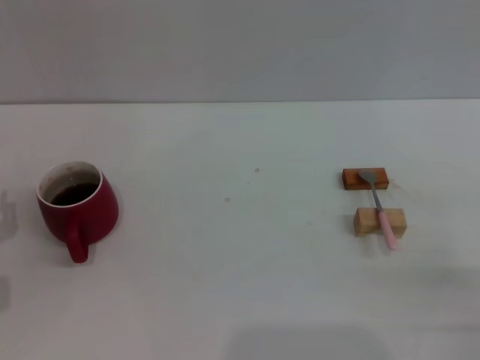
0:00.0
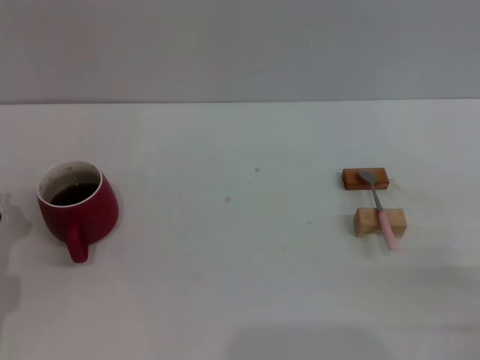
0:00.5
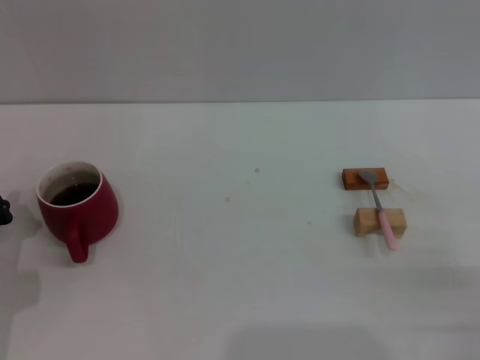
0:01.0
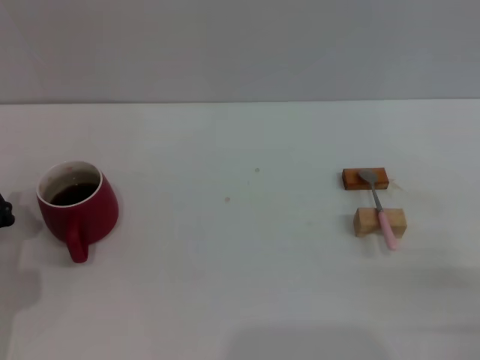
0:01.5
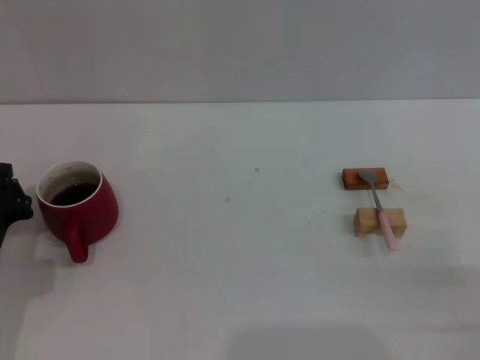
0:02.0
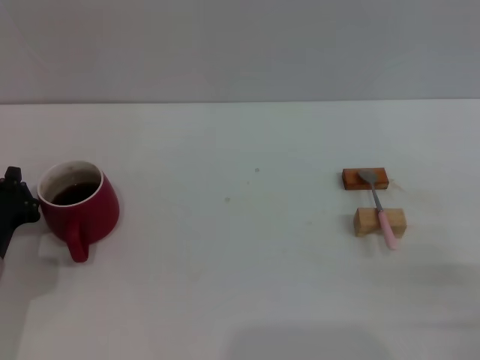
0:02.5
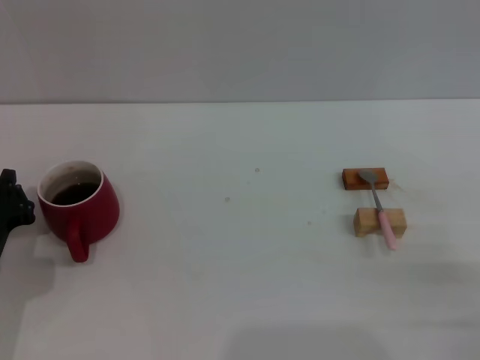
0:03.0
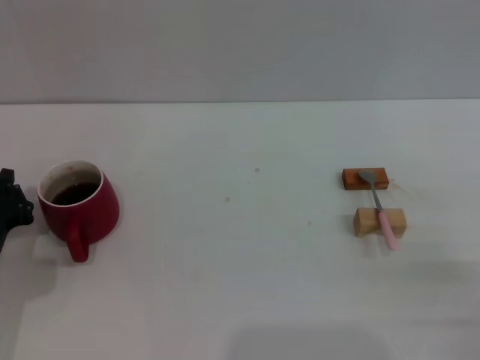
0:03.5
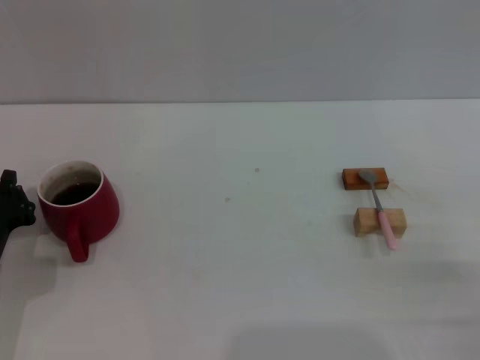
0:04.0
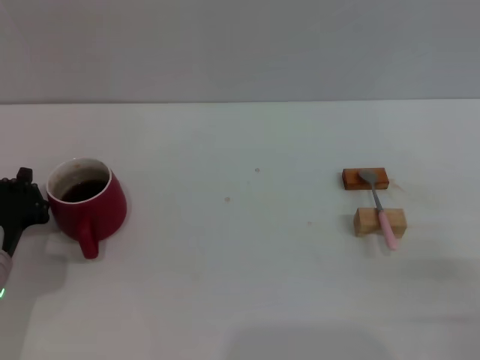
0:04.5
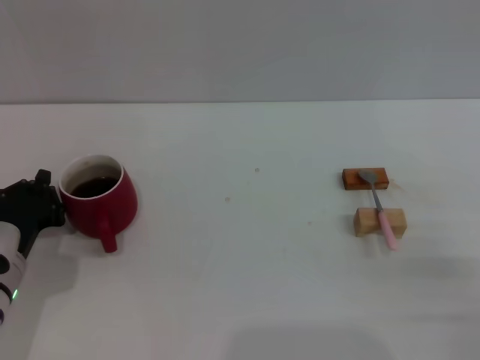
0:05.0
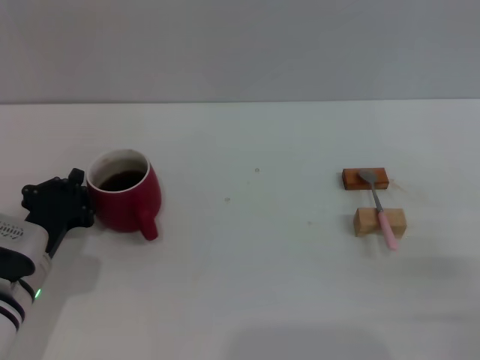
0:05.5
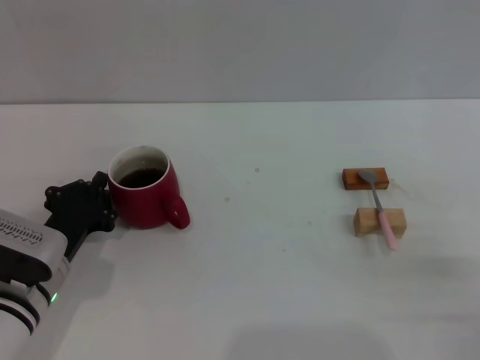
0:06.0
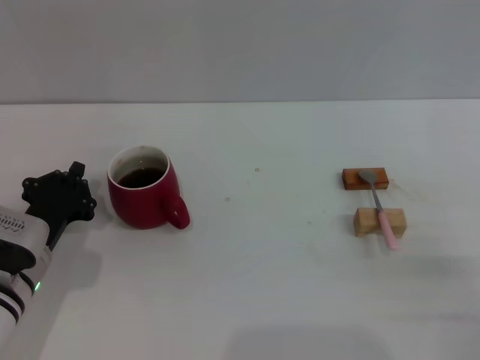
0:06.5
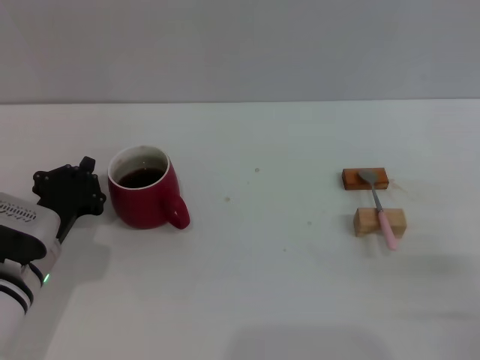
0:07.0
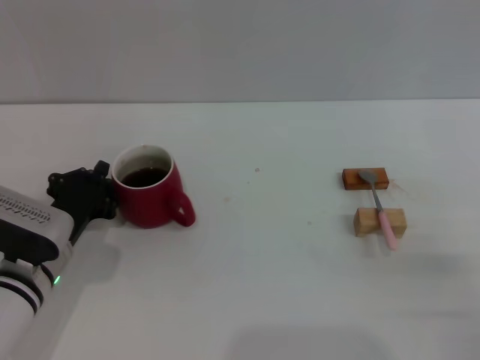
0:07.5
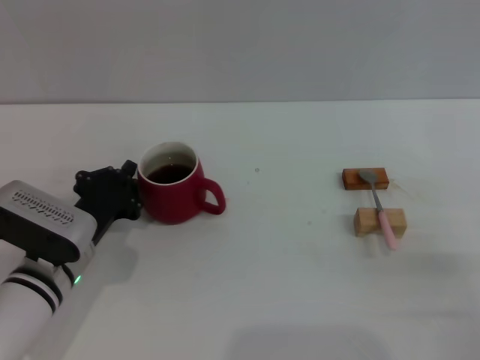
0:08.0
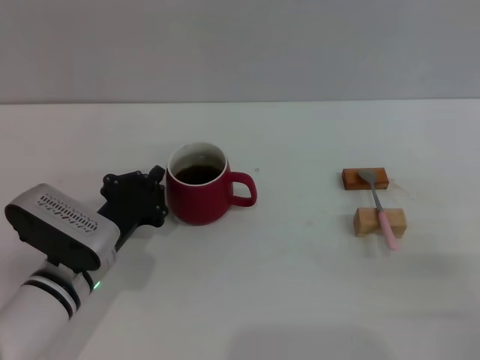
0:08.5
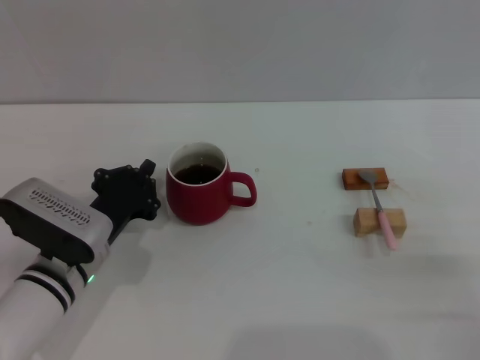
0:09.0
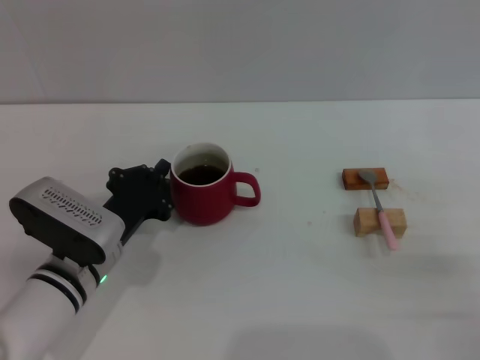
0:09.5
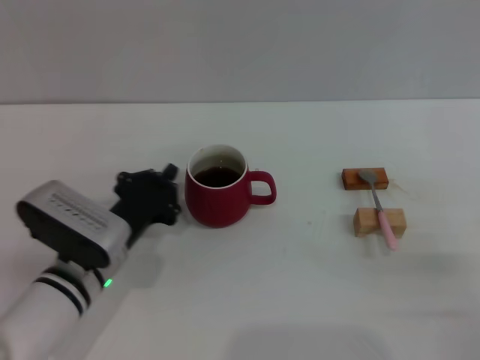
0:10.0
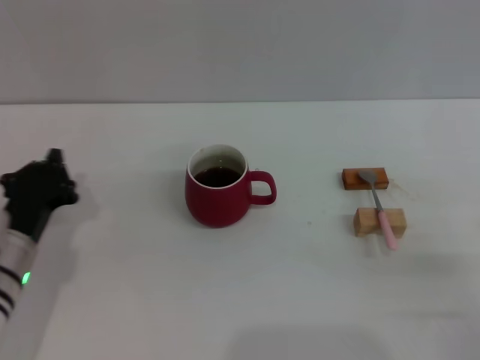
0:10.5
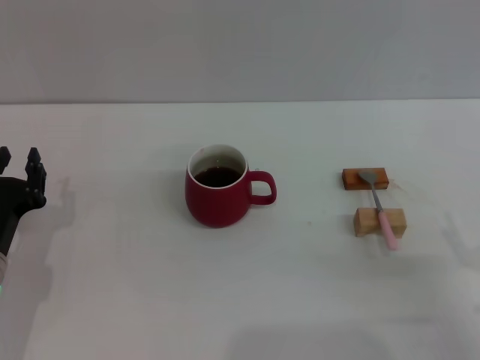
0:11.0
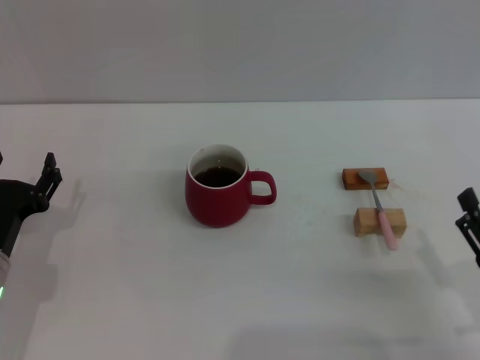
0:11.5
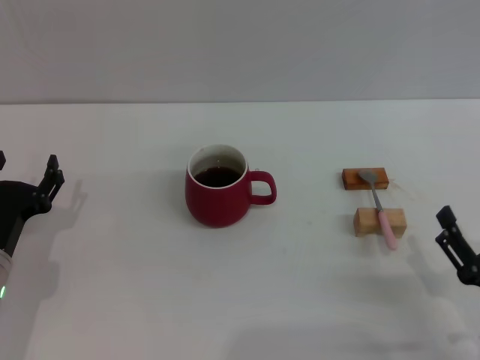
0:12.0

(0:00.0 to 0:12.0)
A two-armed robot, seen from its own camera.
Task of the whole recording: Move the red cup to the center, lift the pink spoon, stir it three times in the cup, and put the spoon into the cup.
Step, 0:00.0 - 0:10.5: Move the cup with coffee to the center of view with the left gripper.
0:00.0 - 0:02.0: The left gripper closes up.
0:04.0 - 0:06.0: The left gripper travels to the right by approximately 5 cm.
0:06.0 - 0:10.0: There are only small adjustments of the grippers.
0:10.0 - 0:12.0: The left gripper moves to the left, roughly 10 cm, and opens its fingers, while the right gripper is displaced to the left by approximately 5 cm.

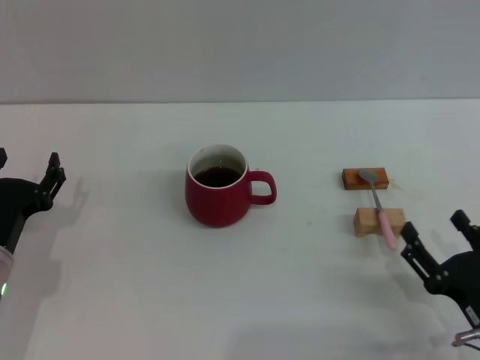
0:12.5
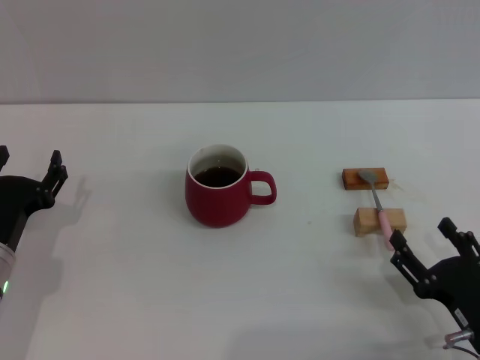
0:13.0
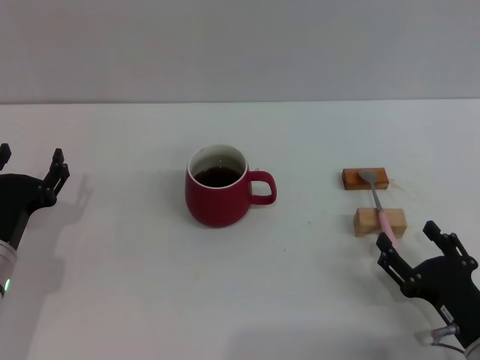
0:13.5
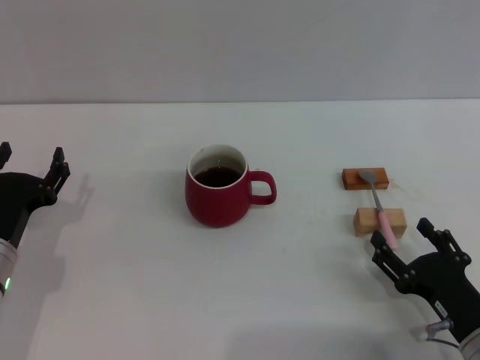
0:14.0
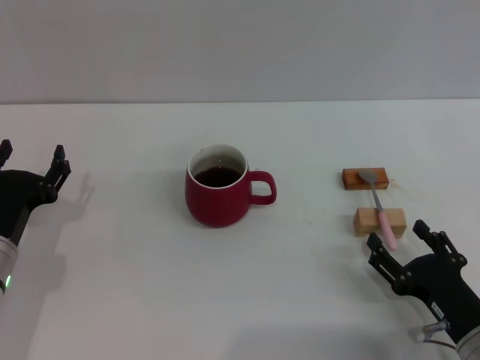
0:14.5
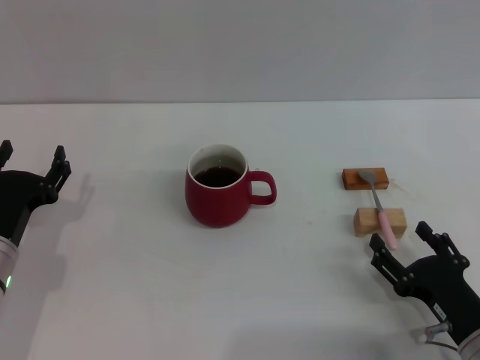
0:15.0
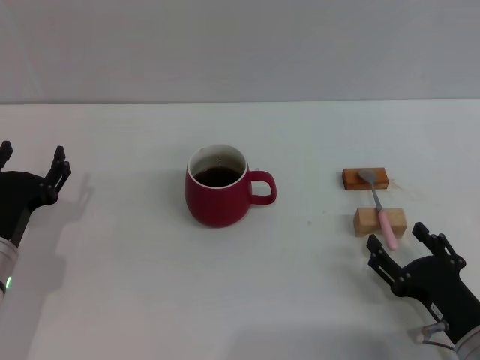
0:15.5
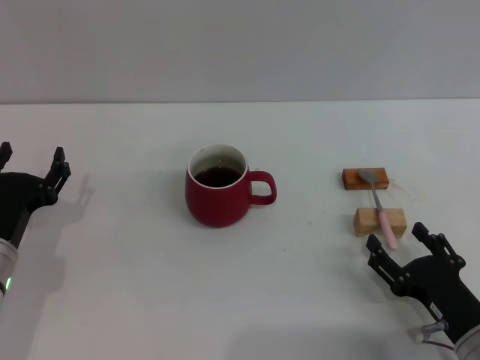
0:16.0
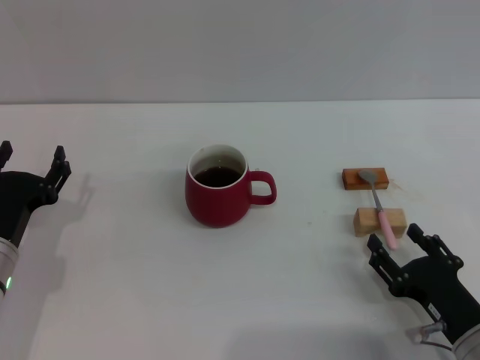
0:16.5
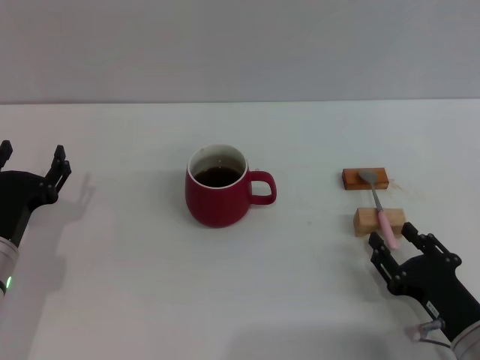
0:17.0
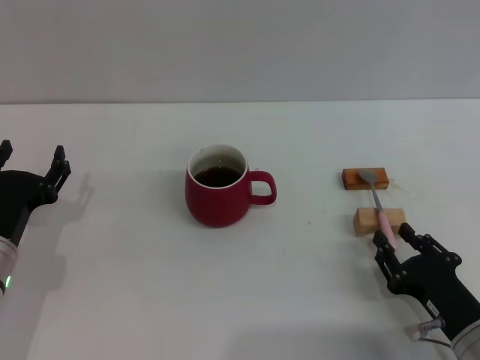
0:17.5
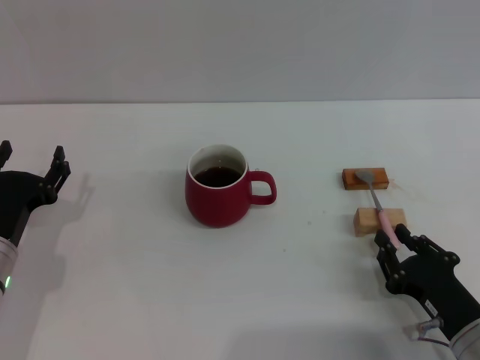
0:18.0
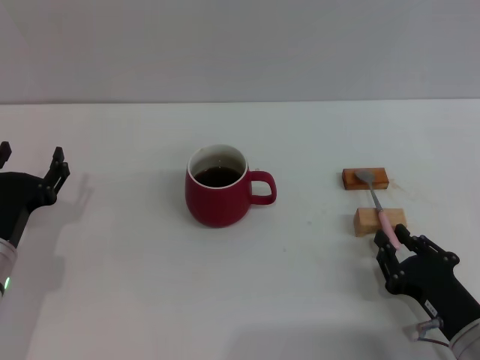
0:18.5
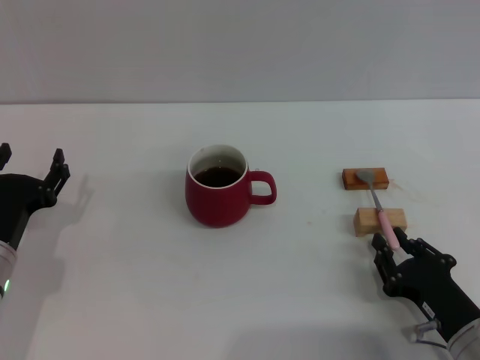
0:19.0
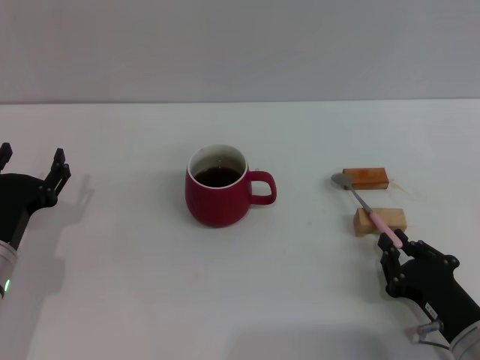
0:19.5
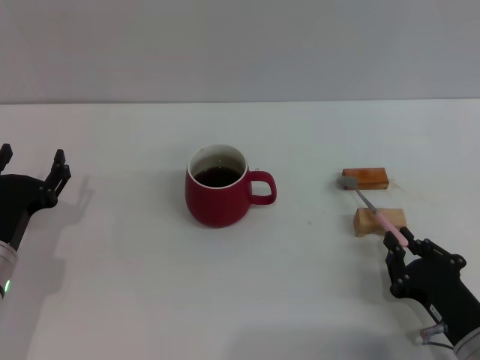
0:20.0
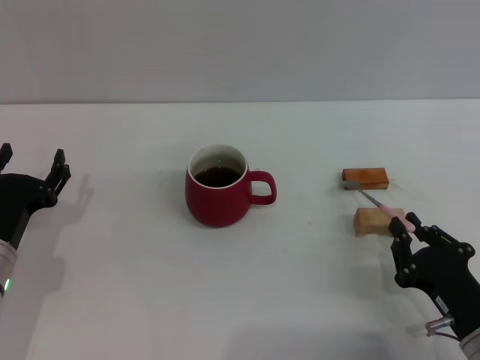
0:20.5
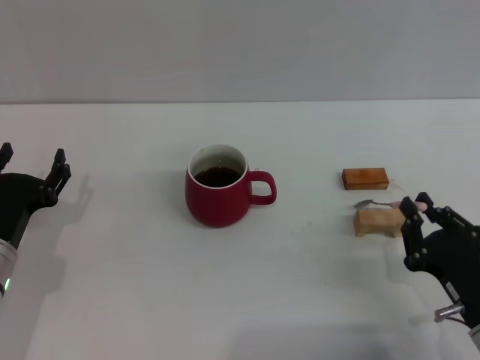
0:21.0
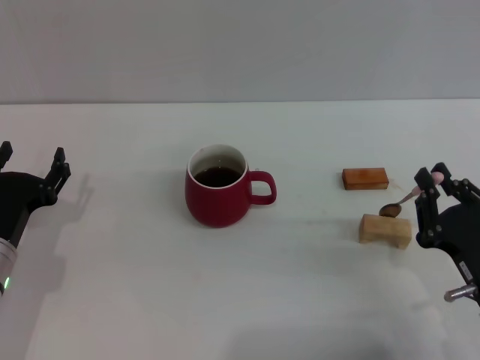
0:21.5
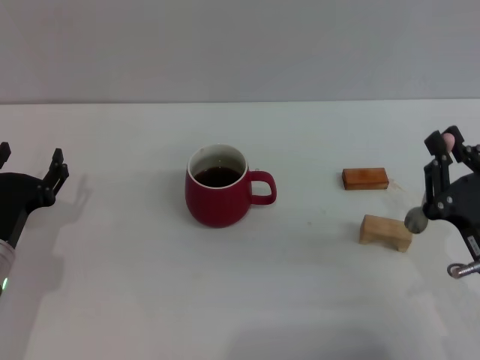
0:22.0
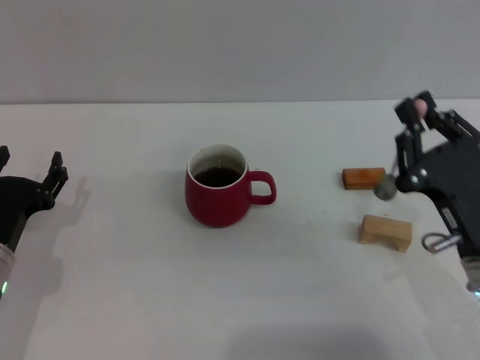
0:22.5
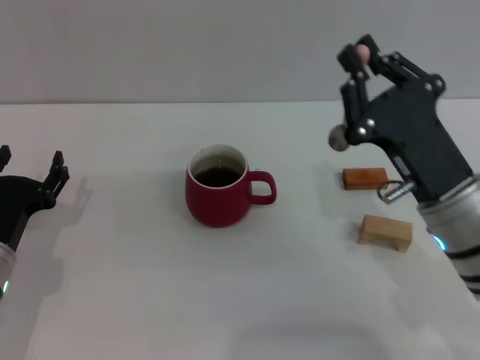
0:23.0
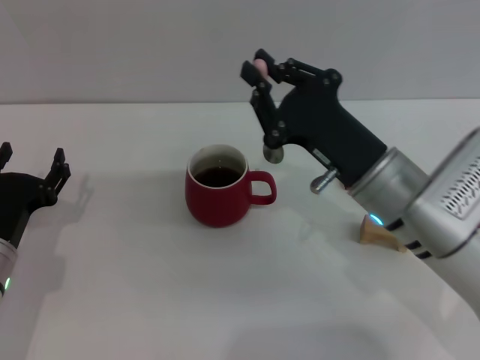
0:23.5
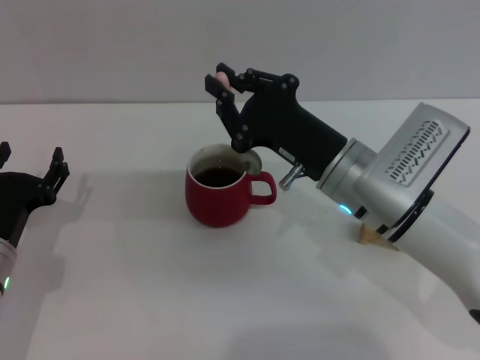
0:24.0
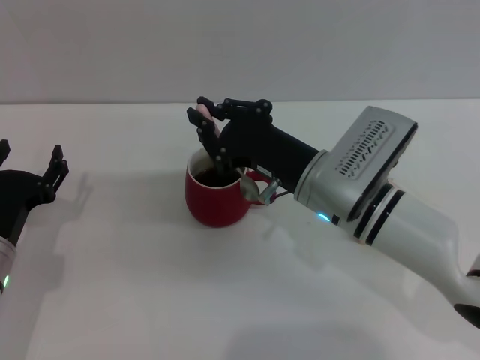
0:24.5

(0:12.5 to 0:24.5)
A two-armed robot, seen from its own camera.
Task of the whole recording: Move the red cup to the center, lift the pink spoon, stir it three times in the cup, and put the spoon into the cup.
Step, 0:12.5 - 0:22.0: Pick up the spoon with the right gripper.
0:12.5 - 0:14.5: There are only small adjustments of the grippers.
0:14.5 - 0:16.5: Both grippers stay put.
0:16.5 - 0:18.5: The right gripper closes its fingers.
0:18.5 - 0:20.5: There are only small adjustments of the grippers.
0:20.5 - 0:22.5: The right gripper heads upward, covering about 10 cm.
0:22.5 - 0:24.5: The right gripper goes some 15 cm to the left and forward.

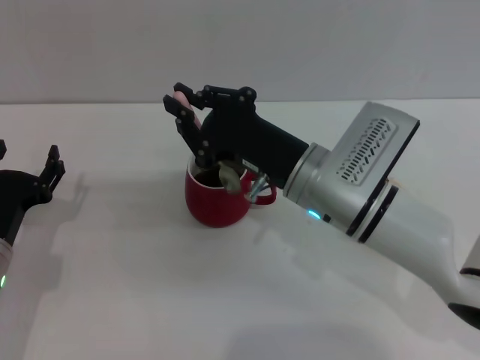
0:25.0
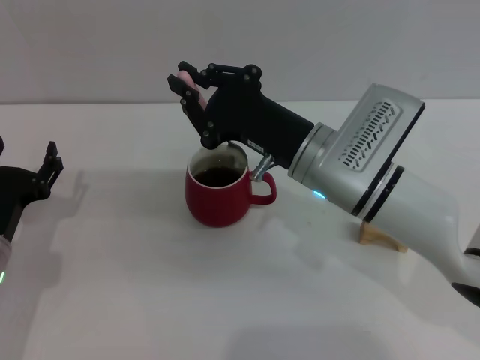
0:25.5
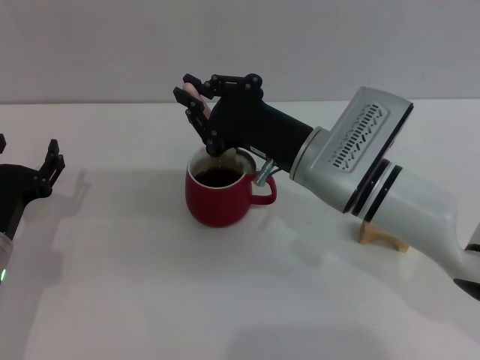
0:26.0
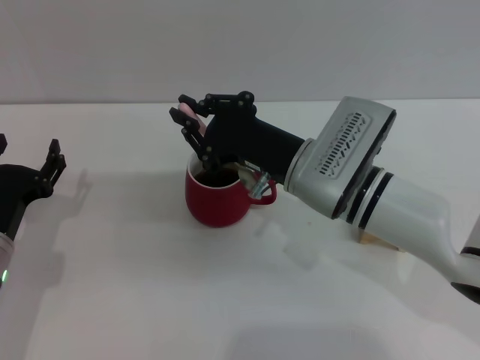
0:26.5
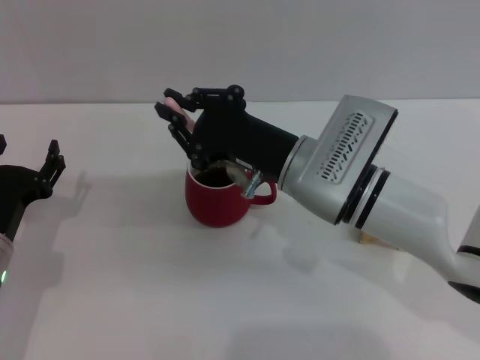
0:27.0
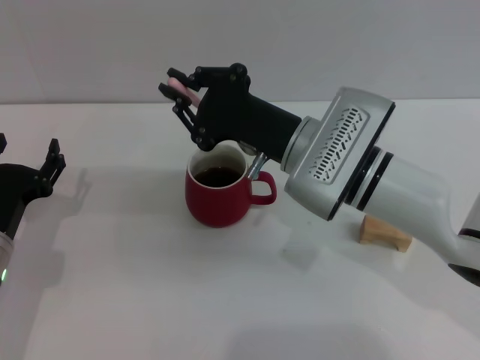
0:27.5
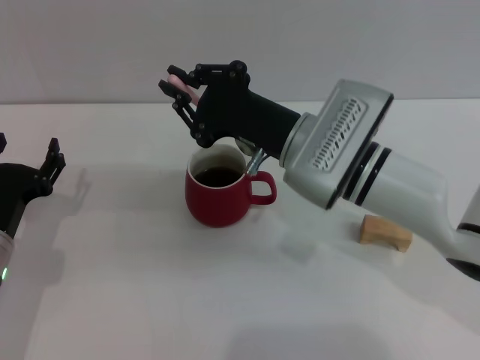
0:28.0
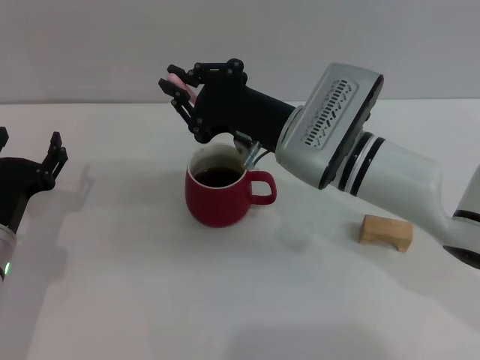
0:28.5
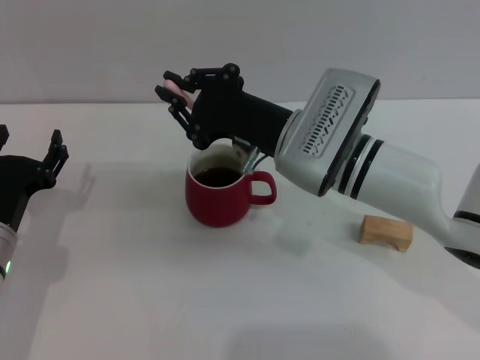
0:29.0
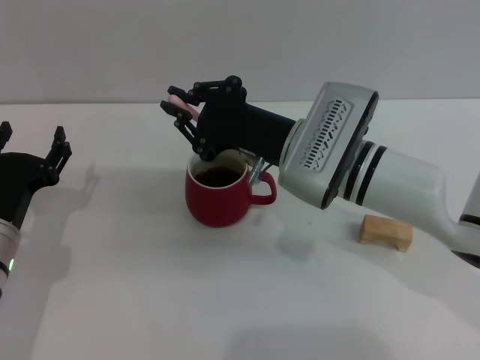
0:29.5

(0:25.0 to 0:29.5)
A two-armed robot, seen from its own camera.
Task of the whole recording: Move the red cup to the center, lift the pink spoon, stir it three times in the cup, and put the spoon into the cup.
0:25.0 - 0:29.5: The grippers move only a little.
